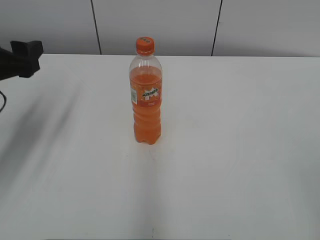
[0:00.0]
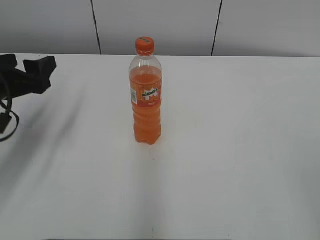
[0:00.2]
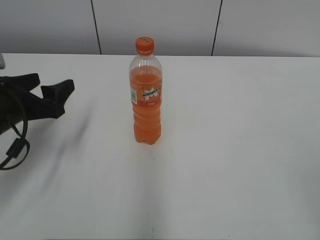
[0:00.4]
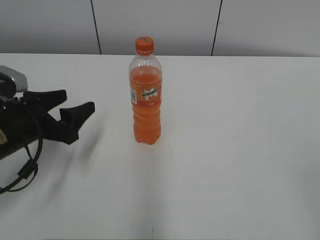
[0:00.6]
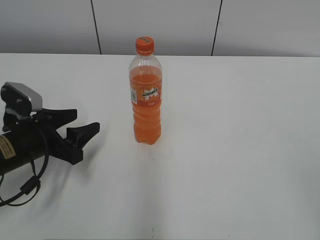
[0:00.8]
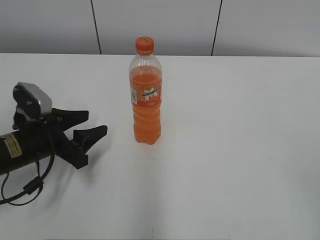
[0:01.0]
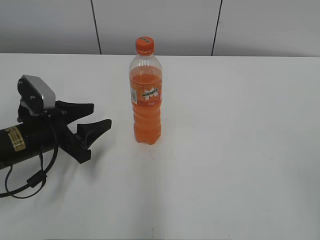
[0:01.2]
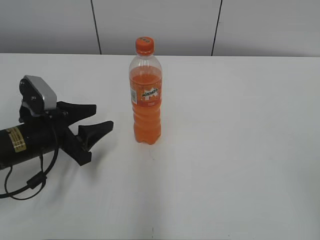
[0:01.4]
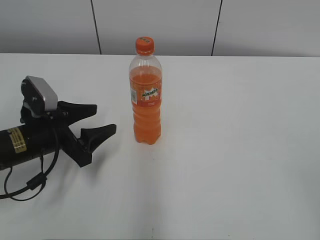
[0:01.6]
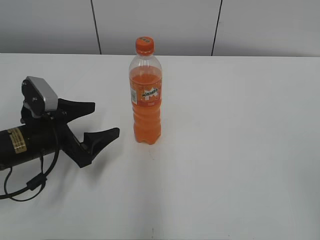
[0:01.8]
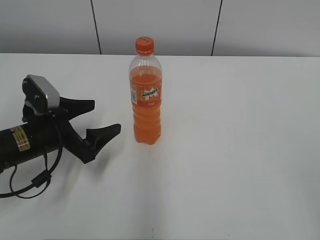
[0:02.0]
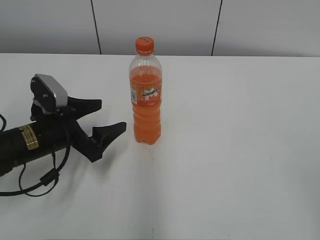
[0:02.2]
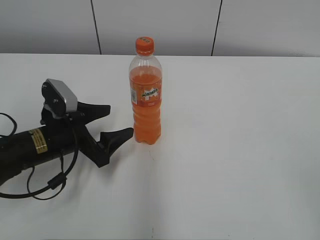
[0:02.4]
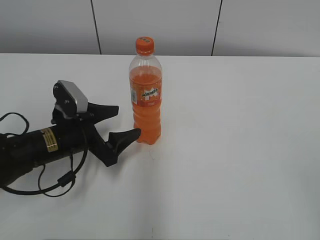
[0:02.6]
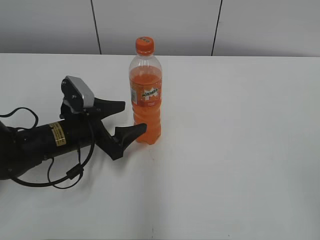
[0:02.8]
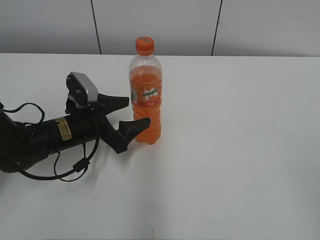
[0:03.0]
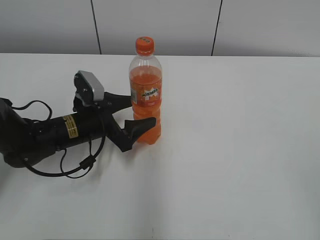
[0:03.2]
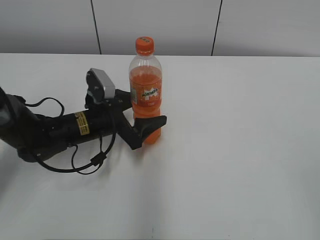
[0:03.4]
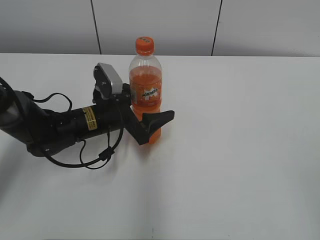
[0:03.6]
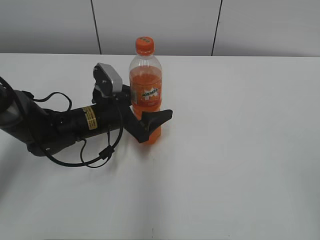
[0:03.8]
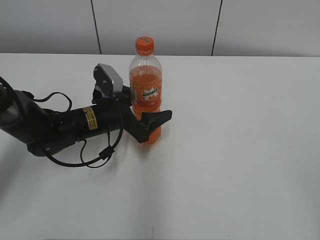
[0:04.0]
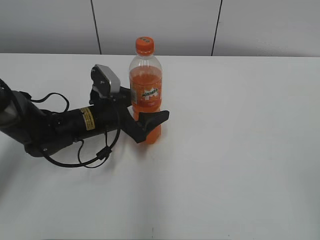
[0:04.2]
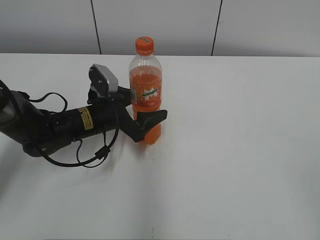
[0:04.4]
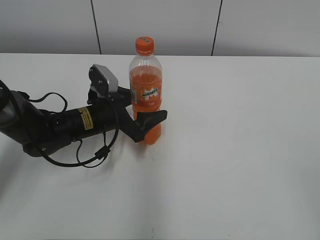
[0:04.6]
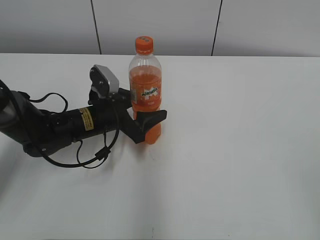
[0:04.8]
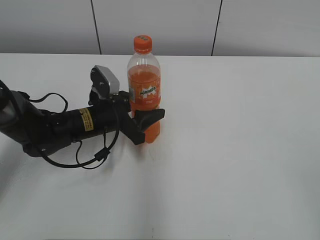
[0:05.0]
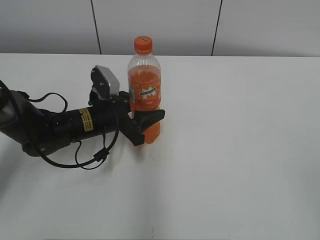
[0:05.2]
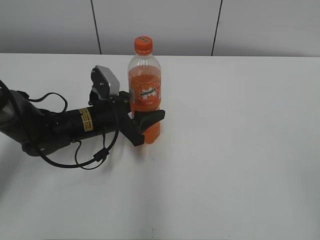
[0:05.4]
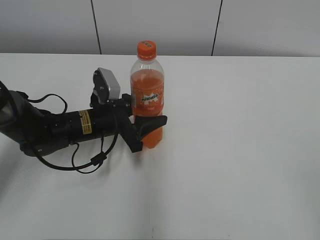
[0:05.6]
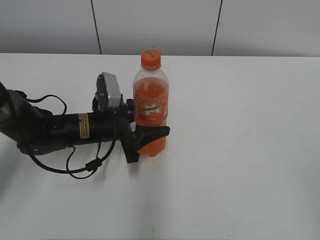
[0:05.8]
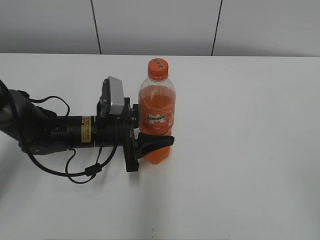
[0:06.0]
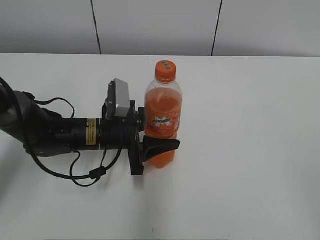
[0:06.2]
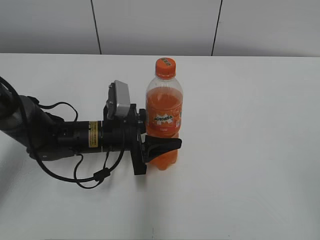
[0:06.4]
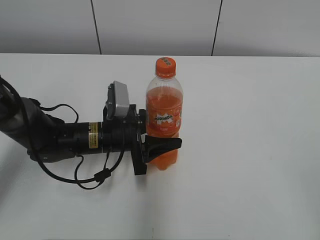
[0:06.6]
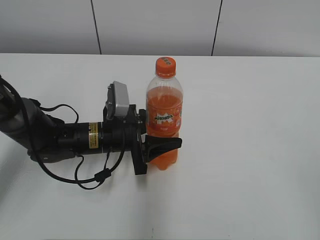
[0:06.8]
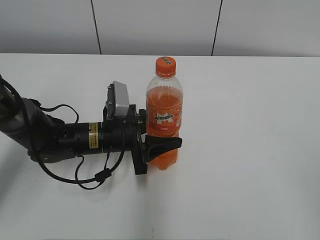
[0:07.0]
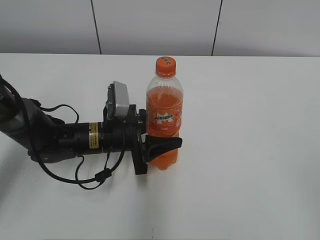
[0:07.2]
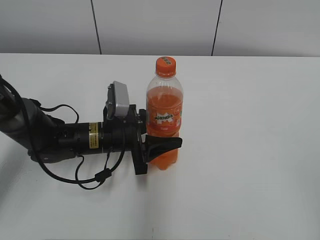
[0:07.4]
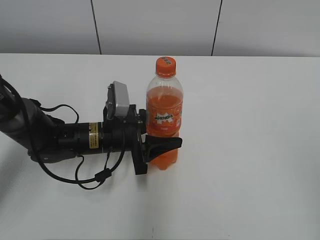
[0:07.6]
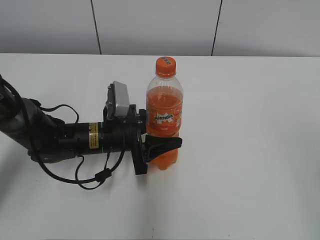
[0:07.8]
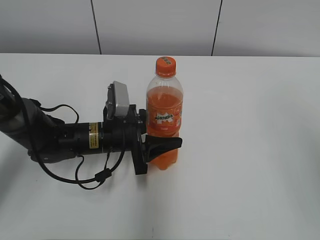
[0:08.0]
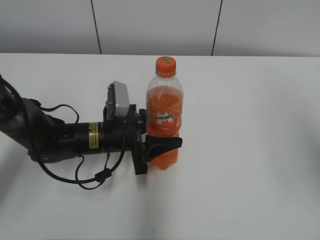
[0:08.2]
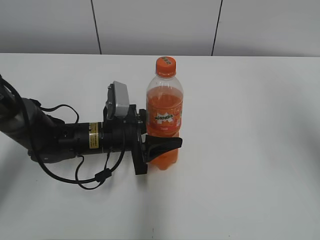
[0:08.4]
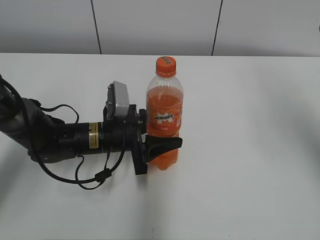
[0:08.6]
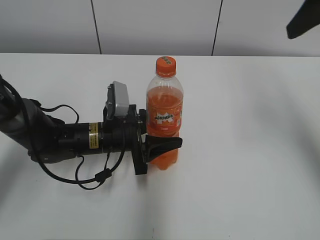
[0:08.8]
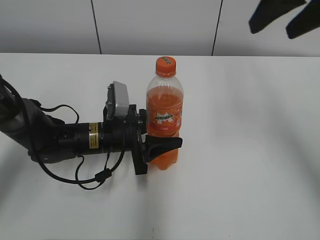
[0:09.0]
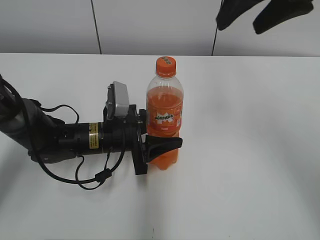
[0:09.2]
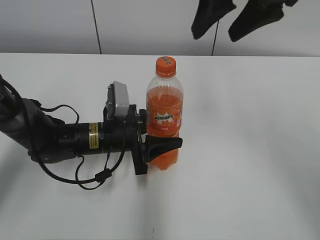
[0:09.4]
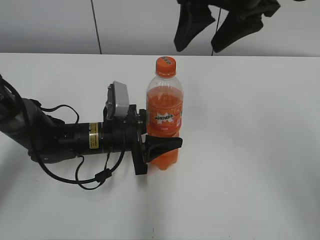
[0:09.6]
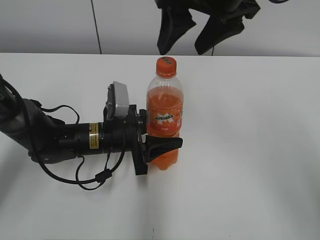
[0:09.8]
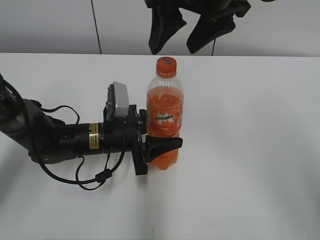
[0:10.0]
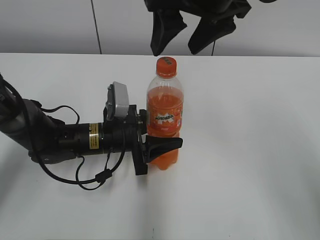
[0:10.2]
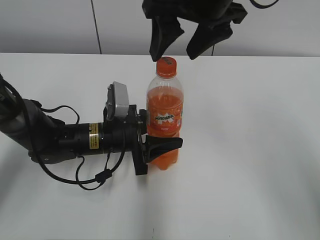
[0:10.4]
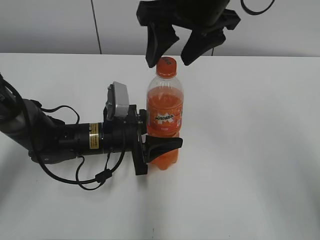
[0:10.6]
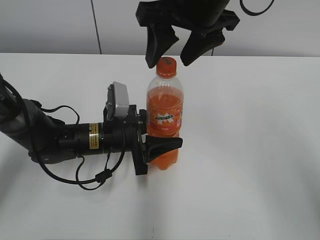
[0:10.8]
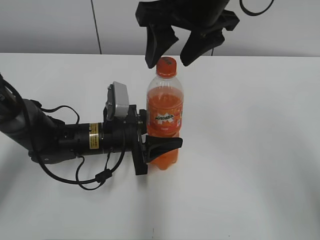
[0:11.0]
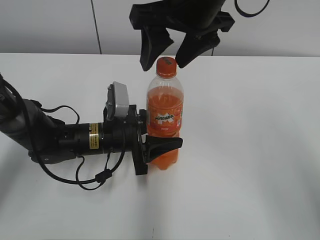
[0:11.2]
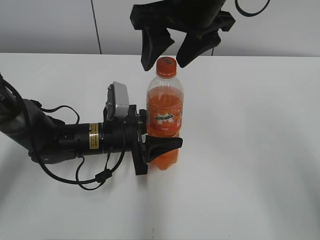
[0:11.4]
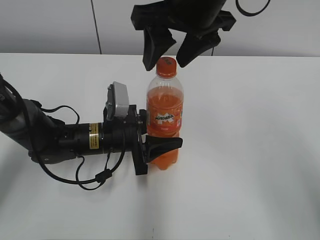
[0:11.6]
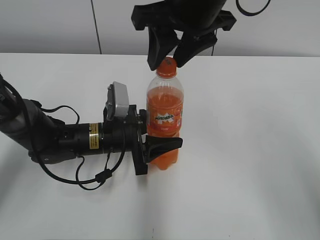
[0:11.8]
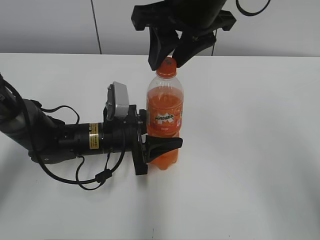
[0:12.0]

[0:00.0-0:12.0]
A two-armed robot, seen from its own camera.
Step, 0:00.0 to 0:05.4: Grab the Mirinda with the left hand.
Step, 0:05.8 to 0:07.2: Move the Mirinda from left to right.
0:00.0 to 0:01.6: The left gripper travels downward and to the right by roughly 15 cm, and closes up.
0:01.6 to 0:03.0: The left gripper moves to the right, about 5 cm, and opens its fingers.
0:03.0 to 0:04.4: The grippers make only small movements.
0:04.4 to 0:06.0: The left gripper closes up.
0:06.0 to 0:07.6: The grippers make only small movements.
0:07.6 to 0:09.0: The right gripper shifts some 30 cm forward.
0:09.0 to 0:10.4: The right gripper travels to the left by about 15 cm.
0:10.4 to 0:12.0: The right gripper closes its fingers.

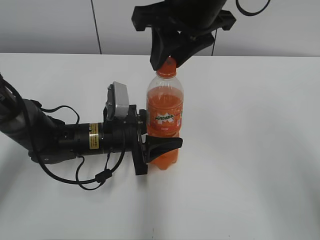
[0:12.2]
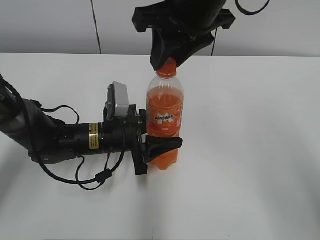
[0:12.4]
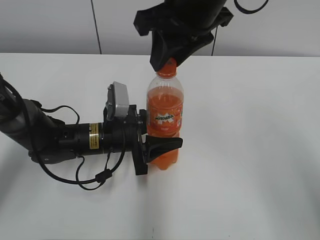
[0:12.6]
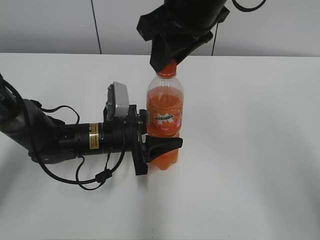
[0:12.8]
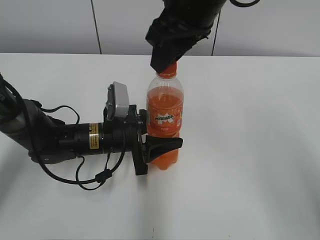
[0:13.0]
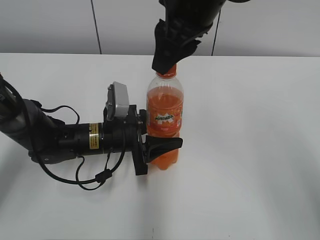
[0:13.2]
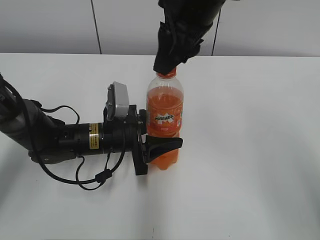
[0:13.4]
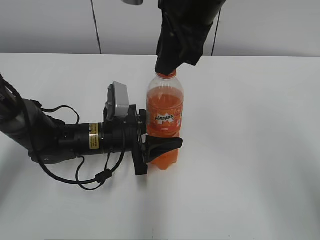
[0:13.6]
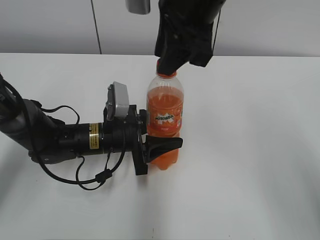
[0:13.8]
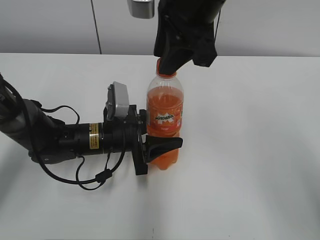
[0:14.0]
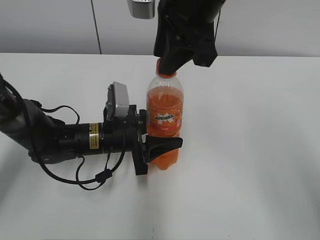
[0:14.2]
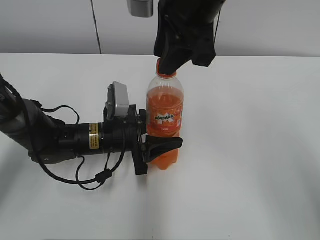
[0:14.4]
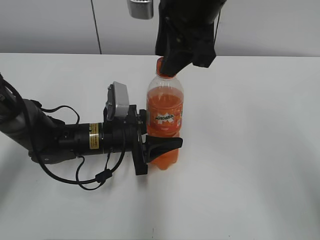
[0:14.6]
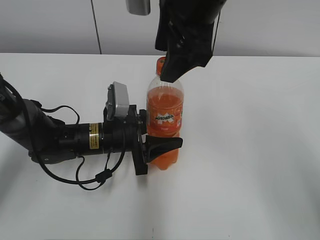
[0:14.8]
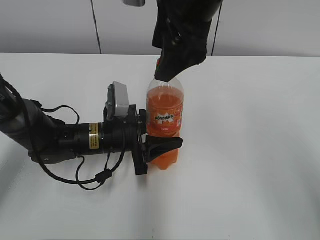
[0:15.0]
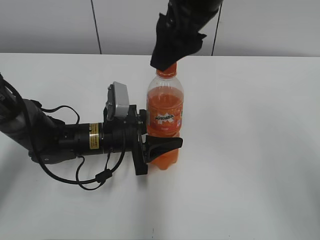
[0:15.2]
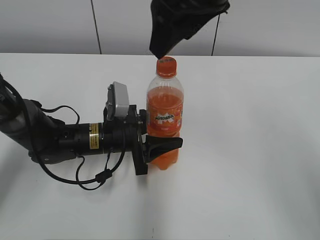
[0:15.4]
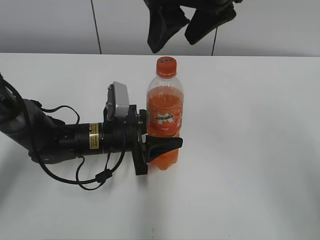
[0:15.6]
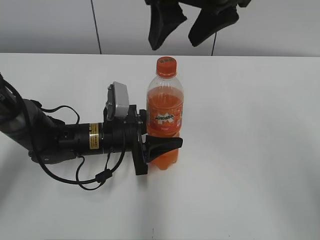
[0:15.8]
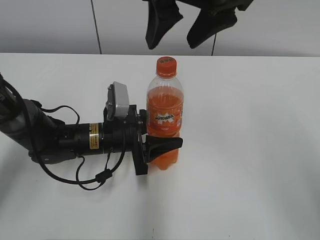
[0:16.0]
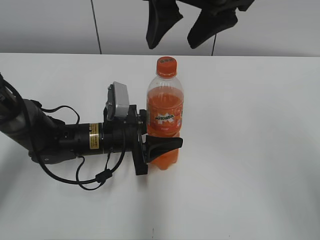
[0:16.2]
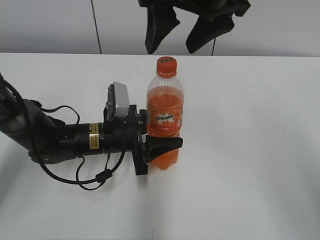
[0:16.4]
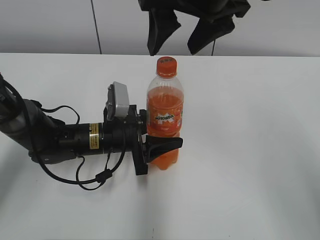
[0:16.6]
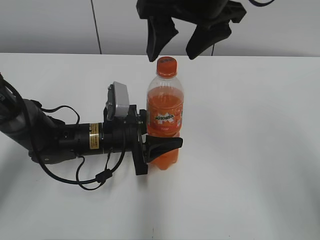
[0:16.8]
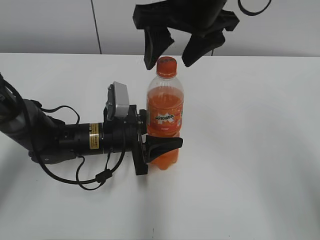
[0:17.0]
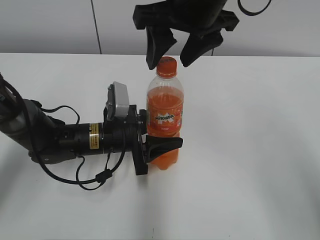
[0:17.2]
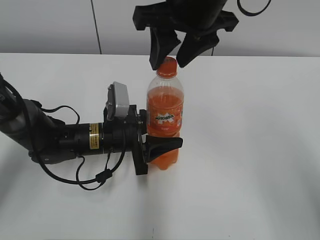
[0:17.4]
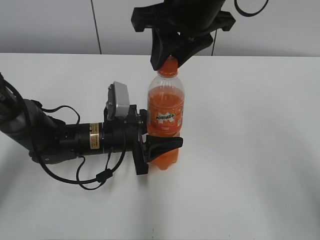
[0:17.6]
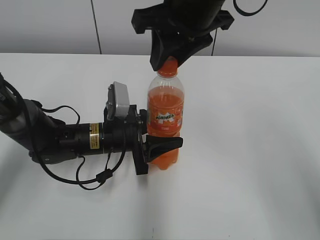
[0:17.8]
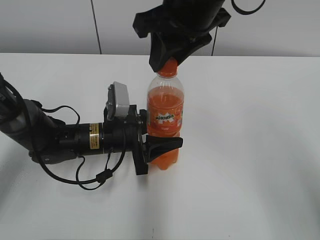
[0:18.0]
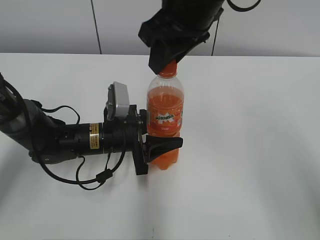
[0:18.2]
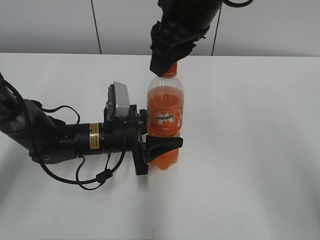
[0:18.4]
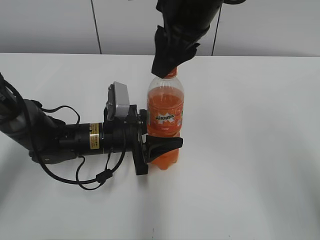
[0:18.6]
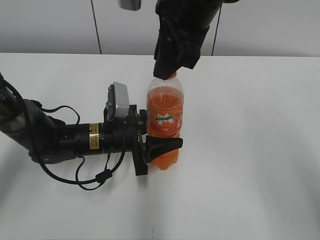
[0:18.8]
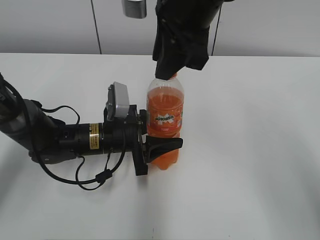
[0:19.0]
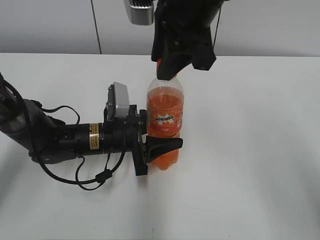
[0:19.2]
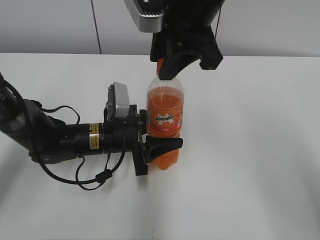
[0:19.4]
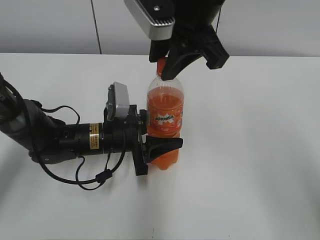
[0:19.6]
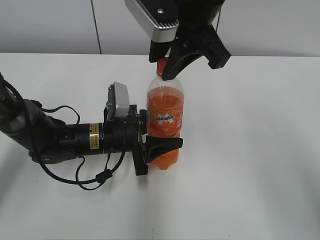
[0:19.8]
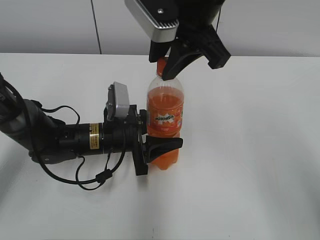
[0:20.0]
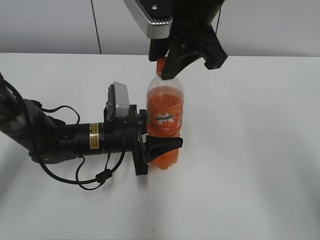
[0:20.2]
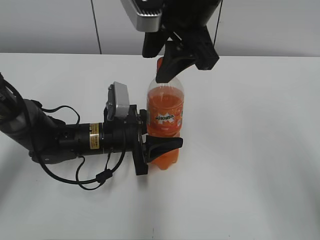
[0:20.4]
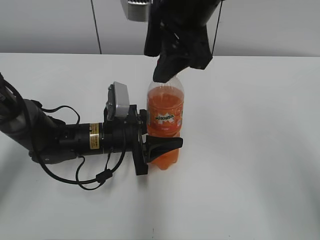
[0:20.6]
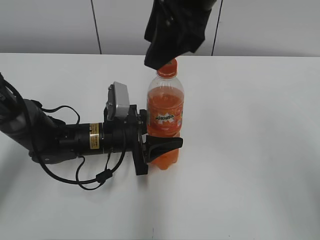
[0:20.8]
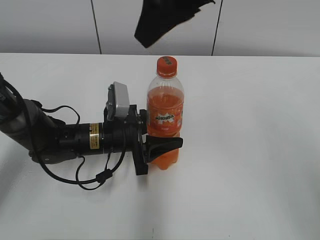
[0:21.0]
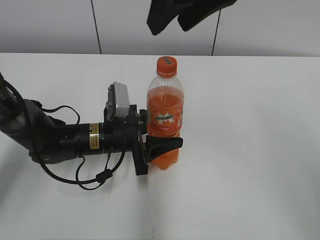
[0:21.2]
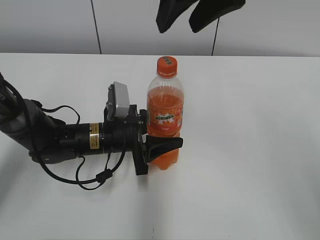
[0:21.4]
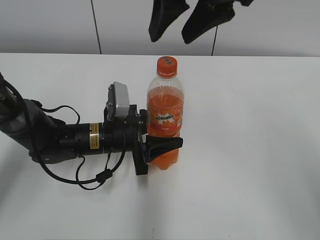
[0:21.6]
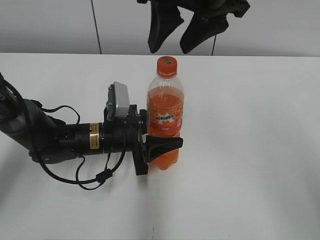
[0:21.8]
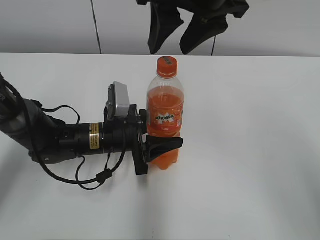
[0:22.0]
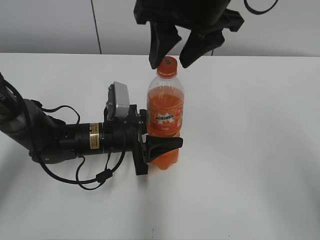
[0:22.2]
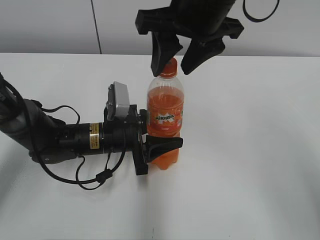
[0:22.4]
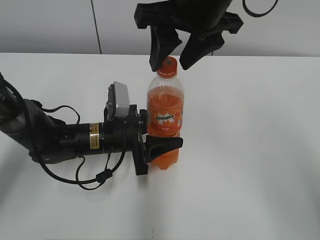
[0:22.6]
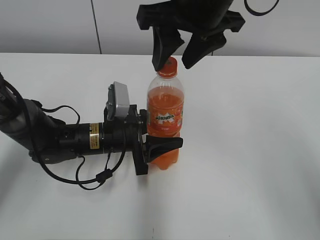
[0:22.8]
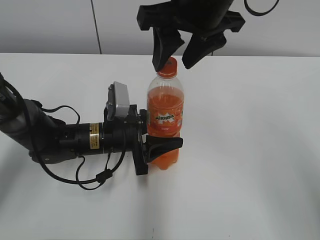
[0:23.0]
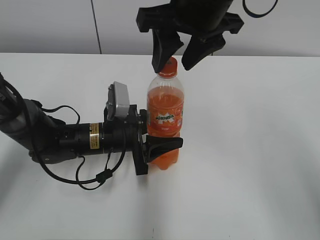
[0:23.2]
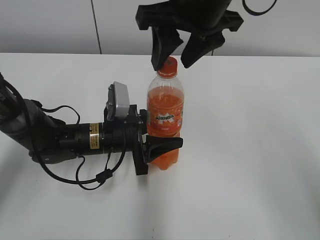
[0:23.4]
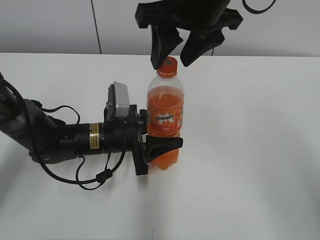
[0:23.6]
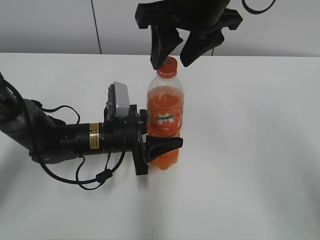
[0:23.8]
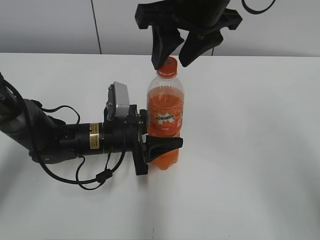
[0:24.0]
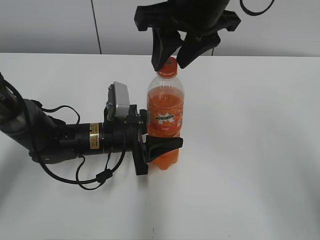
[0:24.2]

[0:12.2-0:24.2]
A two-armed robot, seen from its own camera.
0:13.8 to 0:15.2: The right gripper opens.
0:16.6 to 0:18.2: The right gripper closes.
0:19.8 to 0:21.2: The right gripper moves upward, some 5 cm.
0:21.2 to 0:22.6: The right gripper is displaced downward by approximately 5 cm.
0:22.6 to 0:24.2: The two grippers keep their place.
